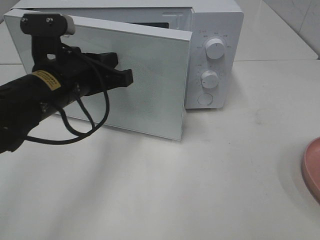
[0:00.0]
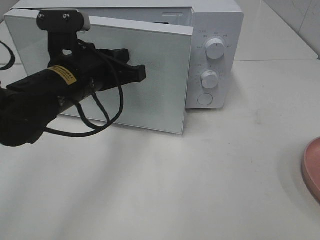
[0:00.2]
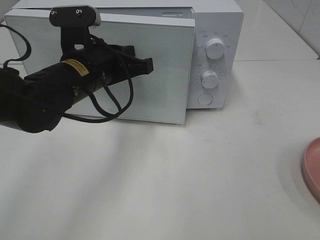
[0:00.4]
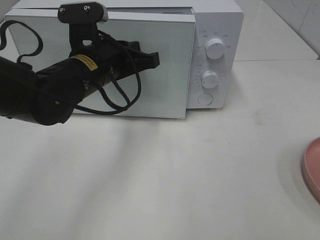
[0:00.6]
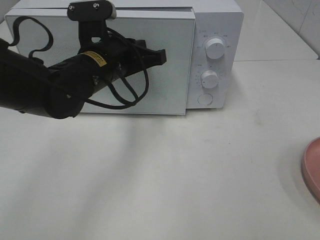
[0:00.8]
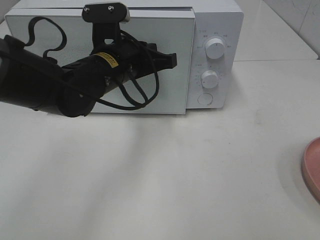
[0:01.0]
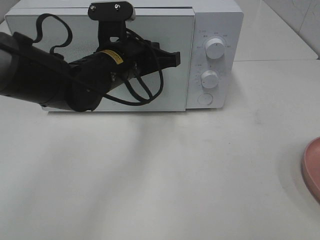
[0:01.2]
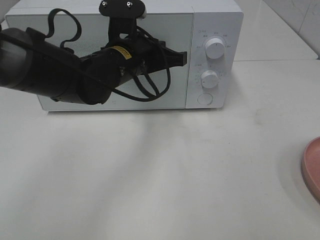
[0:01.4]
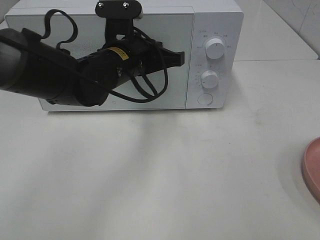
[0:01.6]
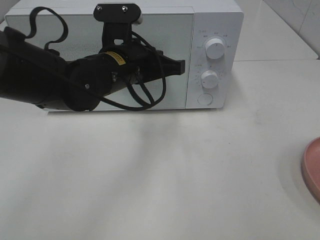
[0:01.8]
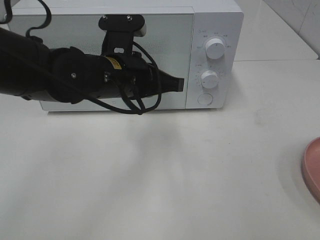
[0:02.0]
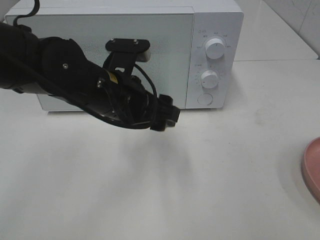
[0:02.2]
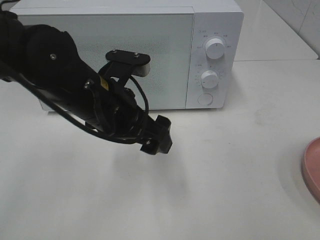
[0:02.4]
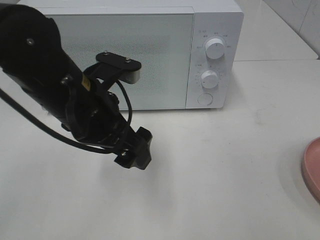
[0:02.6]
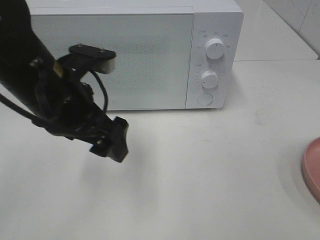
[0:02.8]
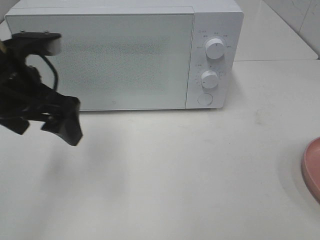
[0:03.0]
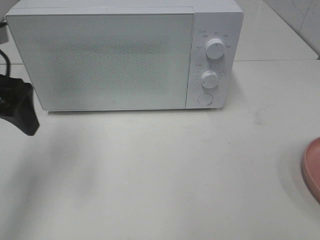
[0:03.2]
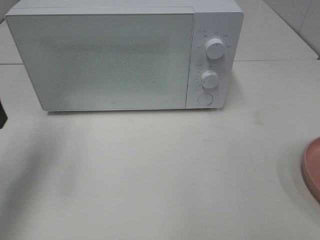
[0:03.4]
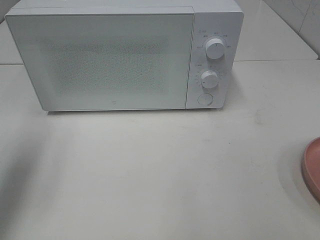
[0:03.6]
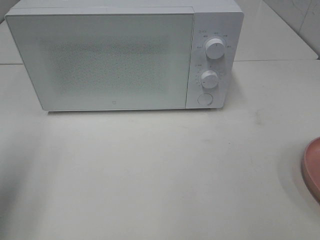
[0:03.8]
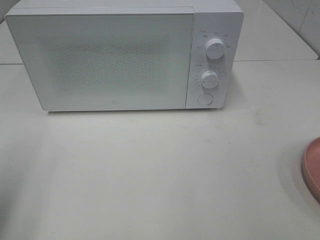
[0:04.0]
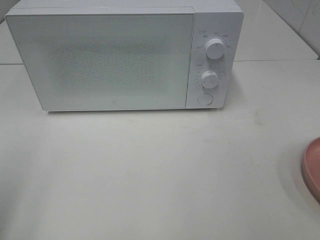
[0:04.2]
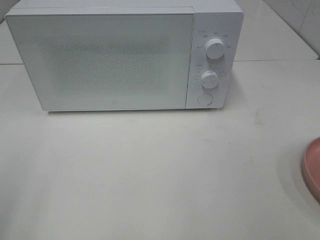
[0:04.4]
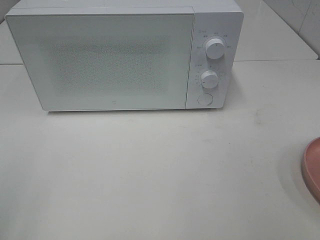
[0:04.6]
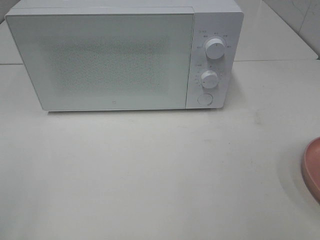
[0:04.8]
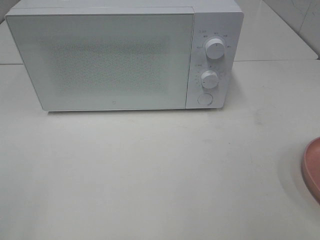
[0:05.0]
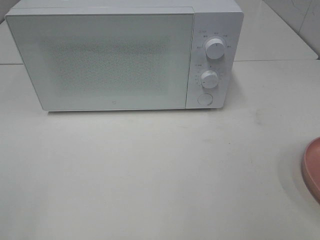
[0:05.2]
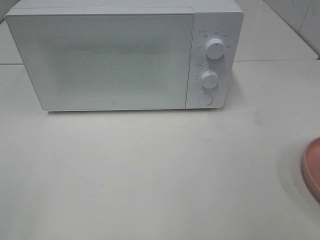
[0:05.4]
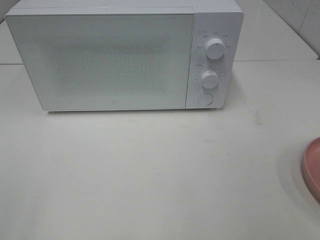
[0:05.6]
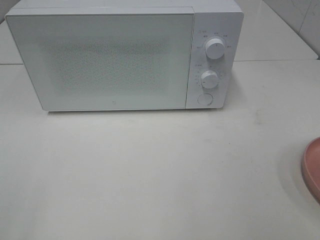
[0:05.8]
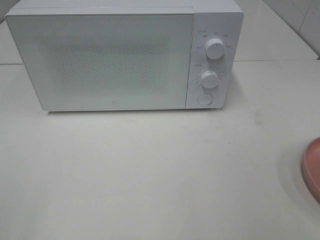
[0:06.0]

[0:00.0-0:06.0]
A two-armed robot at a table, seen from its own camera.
Task of the whole recording: Heat the burger.
0:00.0 to 0:01.6: The left gripper travels to the right and forward by about 10 cm.
0:01.6 to 0:03.0: The left gripper heads to the left, backward and upward, covering some 15 cm, and opens.
0:03.0 to 0:04.4: The left gripper heads backward and to the left, covering some 25 cm.
